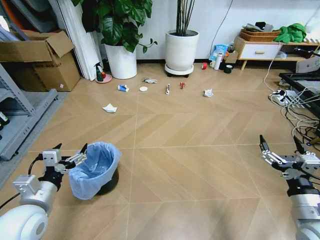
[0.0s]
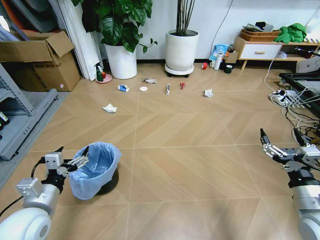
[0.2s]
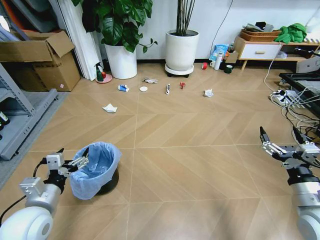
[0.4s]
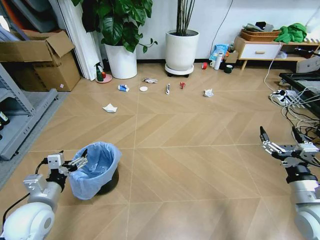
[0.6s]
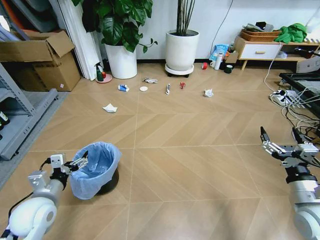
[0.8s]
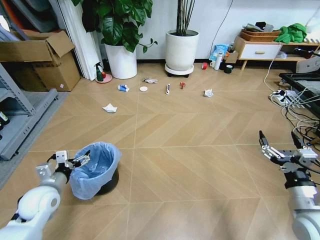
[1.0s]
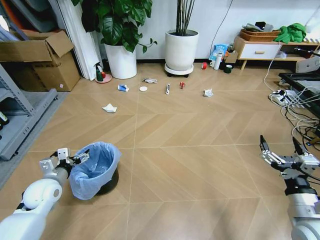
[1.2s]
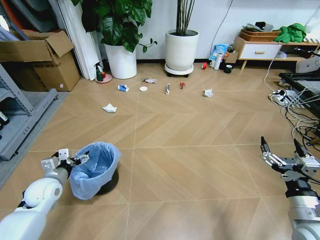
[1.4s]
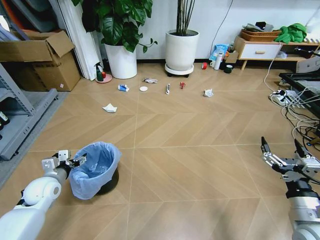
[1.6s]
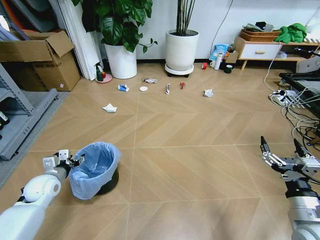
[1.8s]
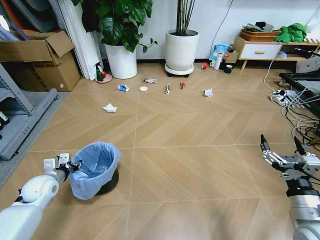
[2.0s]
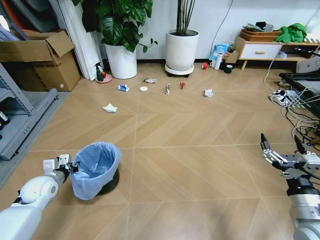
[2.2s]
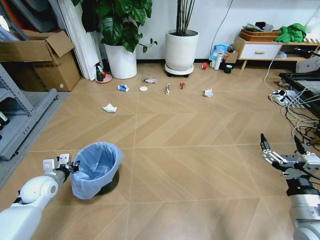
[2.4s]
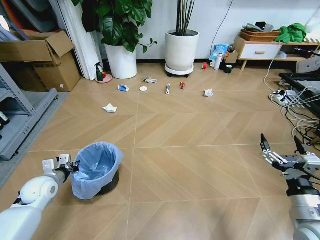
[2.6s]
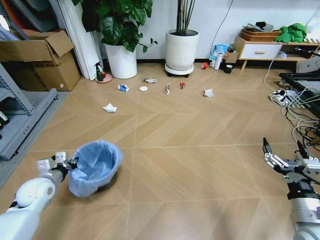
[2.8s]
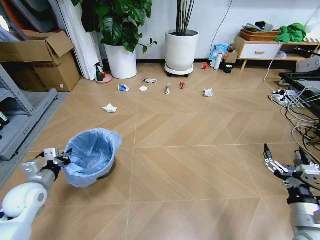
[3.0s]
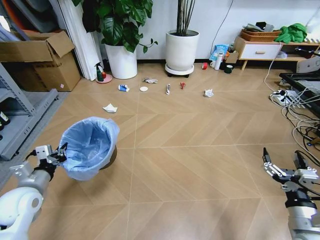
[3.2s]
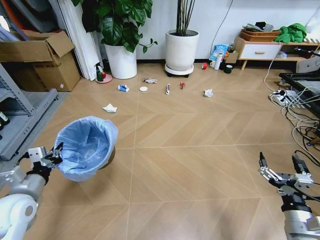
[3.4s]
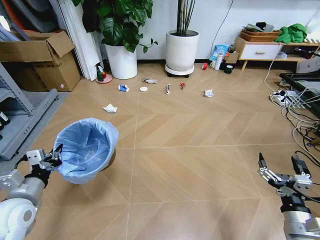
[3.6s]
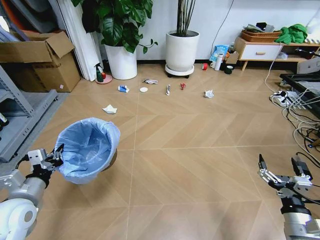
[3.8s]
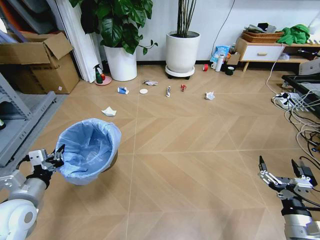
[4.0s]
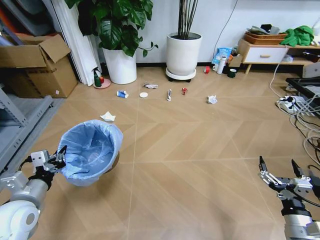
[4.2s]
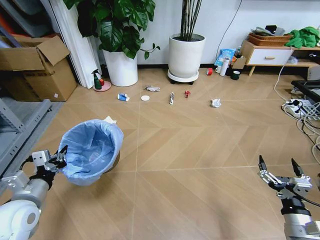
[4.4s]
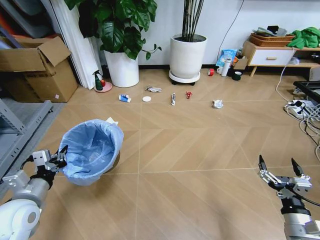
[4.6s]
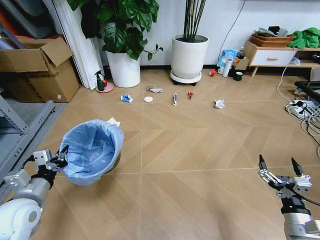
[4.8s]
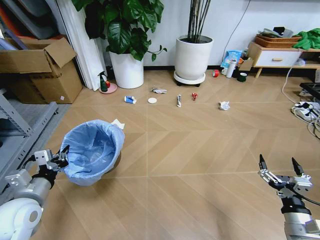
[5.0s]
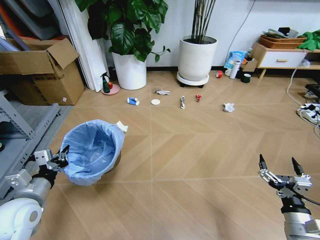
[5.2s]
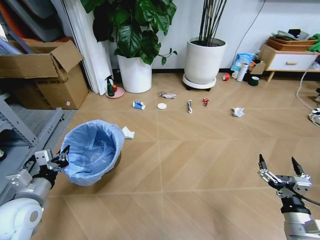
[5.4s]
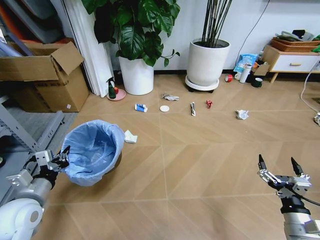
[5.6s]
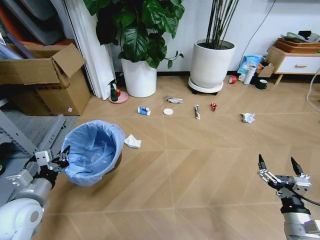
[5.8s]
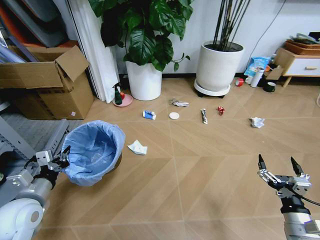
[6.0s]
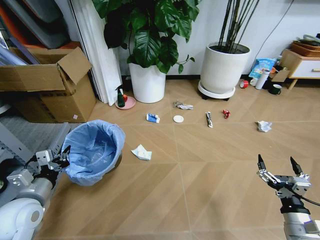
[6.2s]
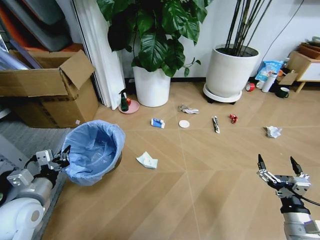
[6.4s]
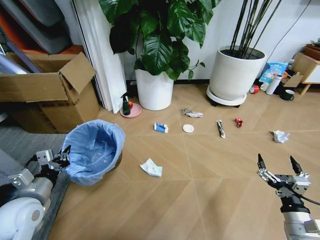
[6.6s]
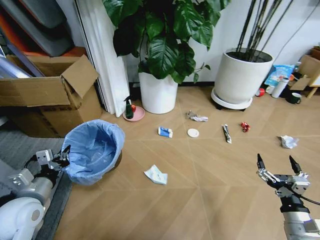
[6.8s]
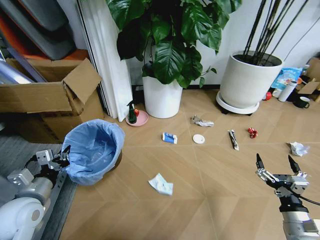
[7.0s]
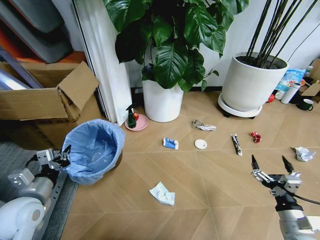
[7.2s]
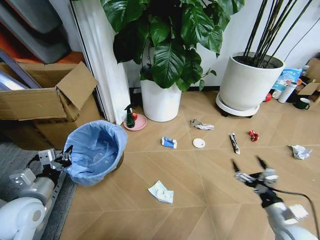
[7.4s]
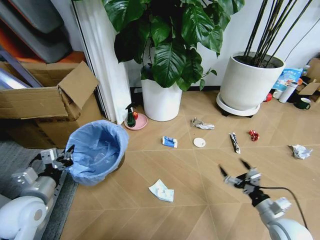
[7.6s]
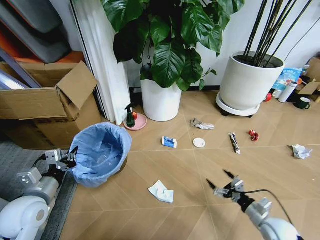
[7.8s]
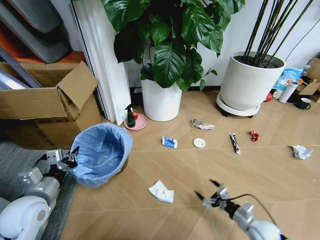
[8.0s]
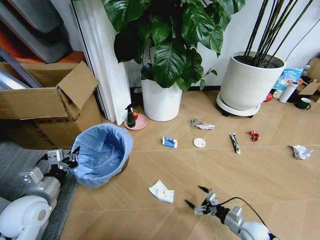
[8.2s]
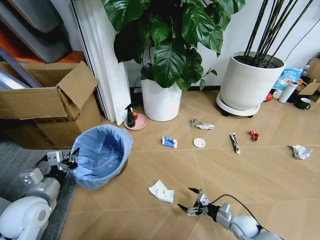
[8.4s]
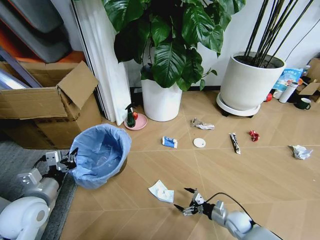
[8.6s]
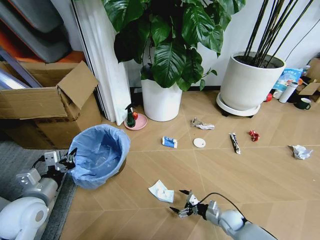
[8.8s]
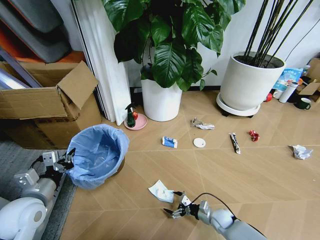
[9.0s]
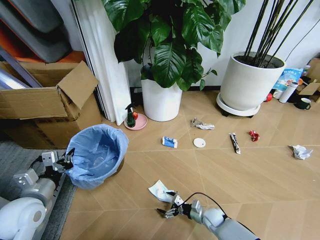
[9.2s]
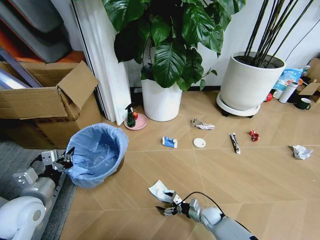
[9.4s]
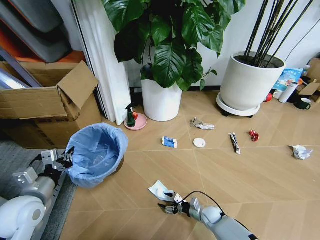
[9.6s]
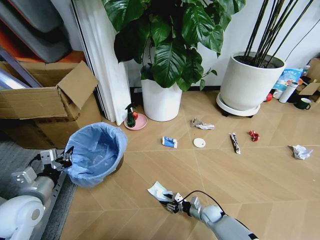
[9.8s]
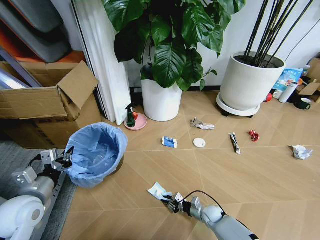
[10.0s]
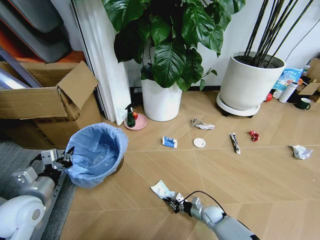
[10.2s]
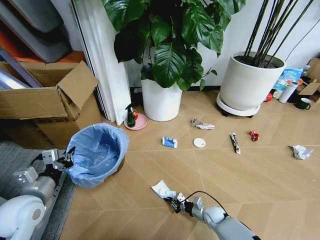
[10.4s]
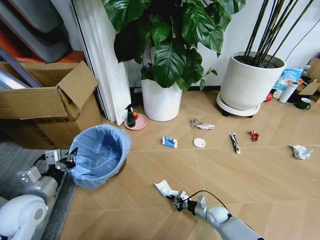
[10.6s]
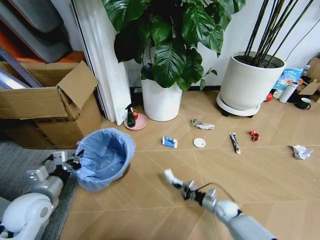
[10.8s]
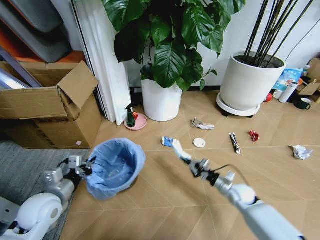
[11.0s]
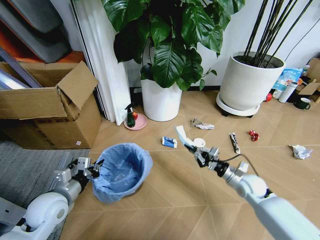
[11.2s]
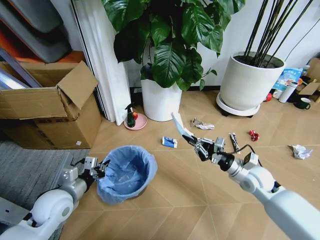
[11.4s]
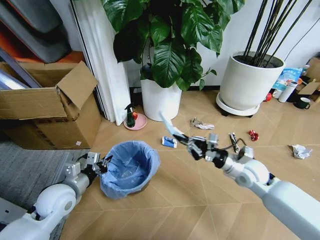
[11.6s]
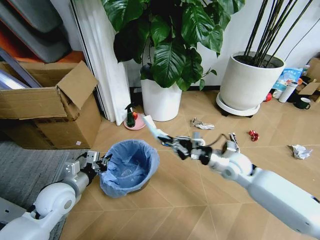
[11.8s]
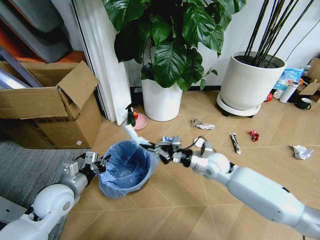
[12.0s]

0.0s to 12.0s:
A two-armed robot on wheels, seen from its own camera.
Task of the whole recording: Pick up the trash bin and place the garbage on the floor into it.
1.6s to 3.0s: The left gripper shifts by about 5 cm, and closes up.
3.0s to 4.4s: The left gripper is displaced backward by some 5 cm.
6.0s to 7.6s: The right gripper goes some 10 cm downward and forward.
7.6s to 9.0s: The right gripper travels downward, to the left and forward by approximately 25 cm.
9.0s to 10.4s: The right gripper closes its fingers.
10.4s to 12.0s: The left gripper travels to the right by about 5 cm; the right gripper heads upward, covering roughly 30 cm.

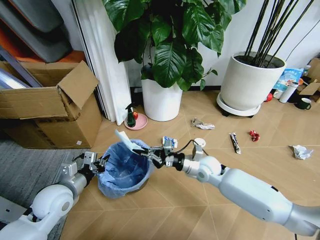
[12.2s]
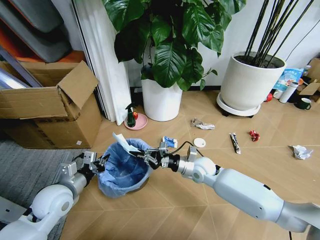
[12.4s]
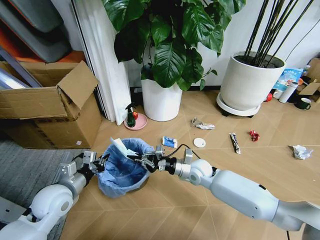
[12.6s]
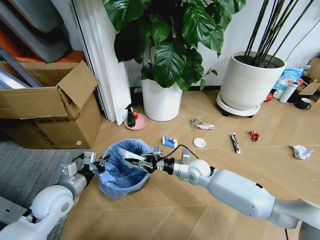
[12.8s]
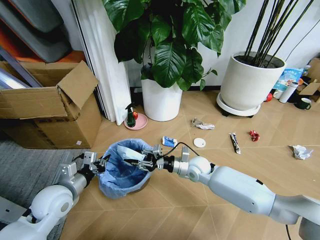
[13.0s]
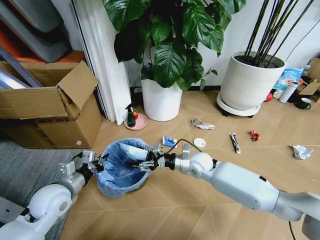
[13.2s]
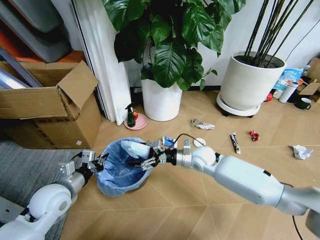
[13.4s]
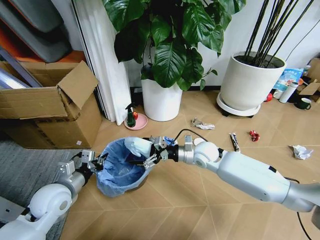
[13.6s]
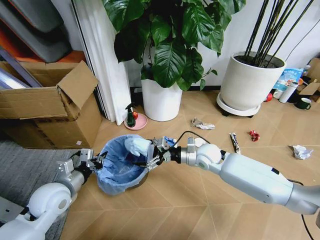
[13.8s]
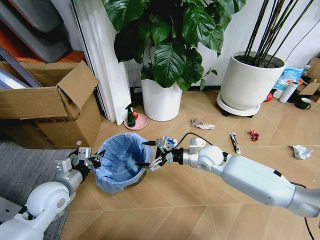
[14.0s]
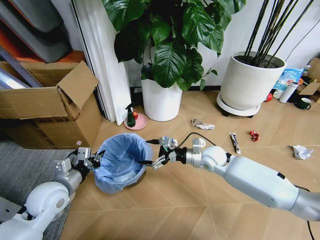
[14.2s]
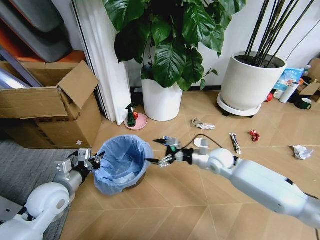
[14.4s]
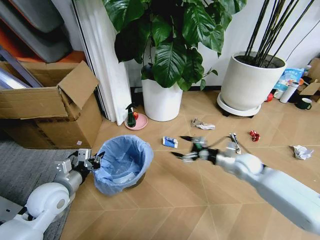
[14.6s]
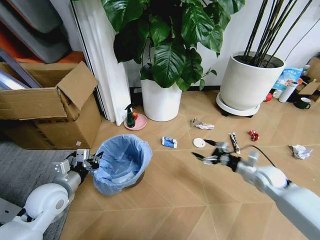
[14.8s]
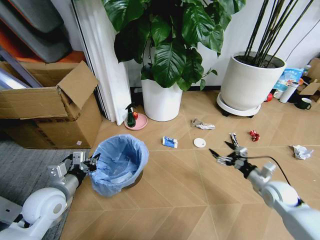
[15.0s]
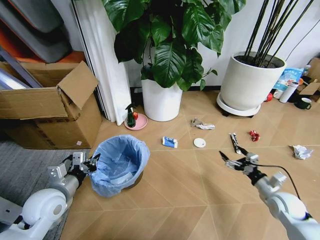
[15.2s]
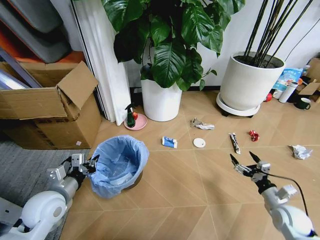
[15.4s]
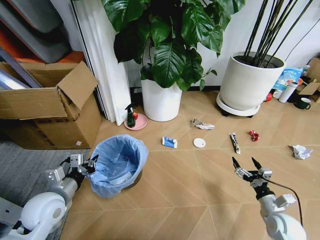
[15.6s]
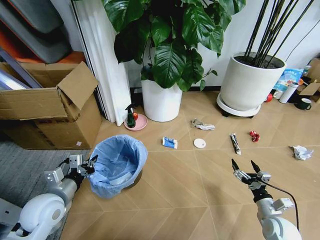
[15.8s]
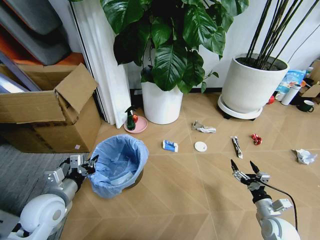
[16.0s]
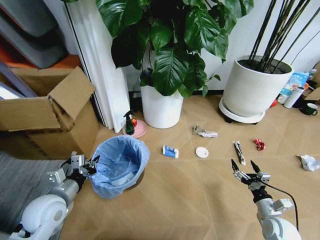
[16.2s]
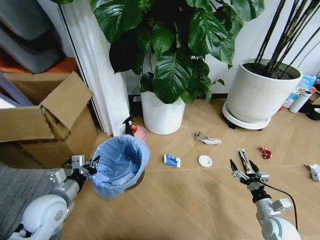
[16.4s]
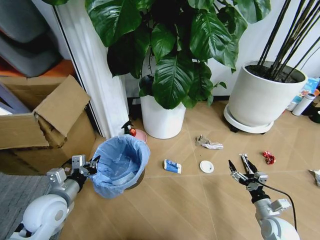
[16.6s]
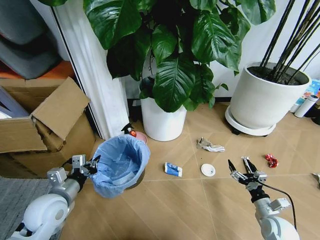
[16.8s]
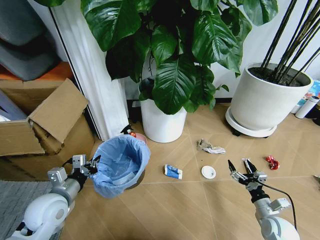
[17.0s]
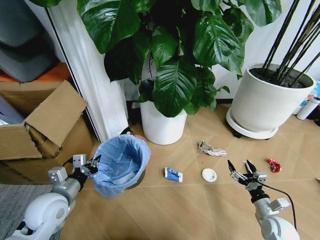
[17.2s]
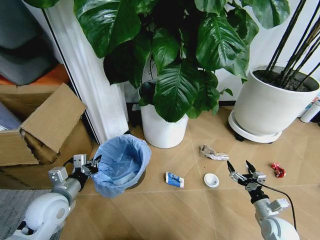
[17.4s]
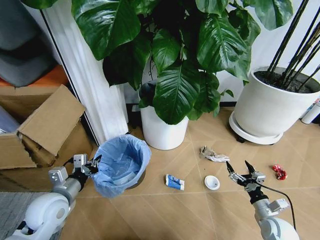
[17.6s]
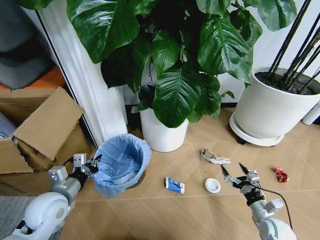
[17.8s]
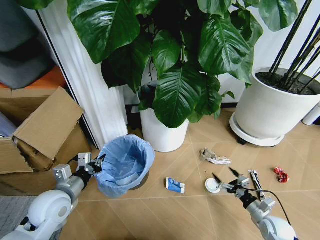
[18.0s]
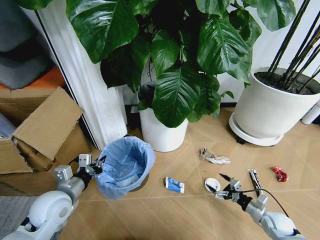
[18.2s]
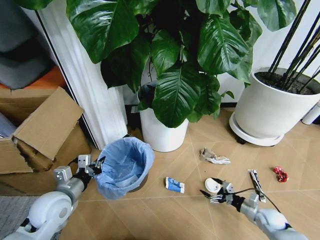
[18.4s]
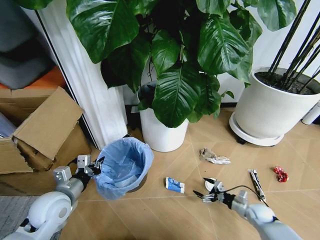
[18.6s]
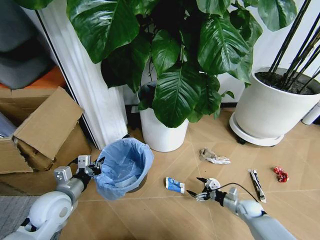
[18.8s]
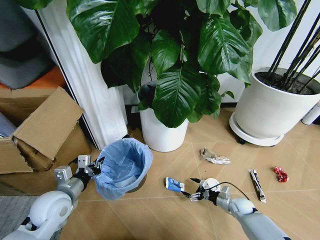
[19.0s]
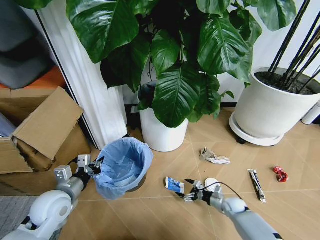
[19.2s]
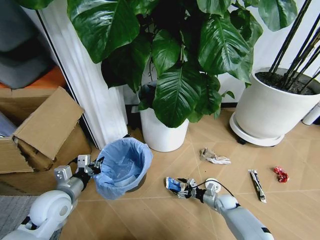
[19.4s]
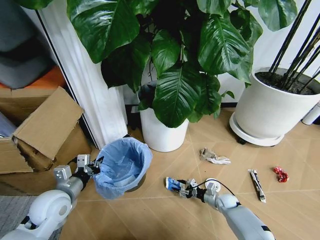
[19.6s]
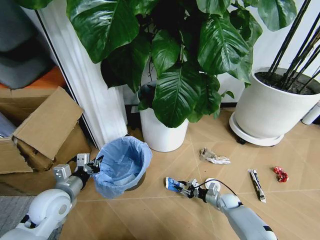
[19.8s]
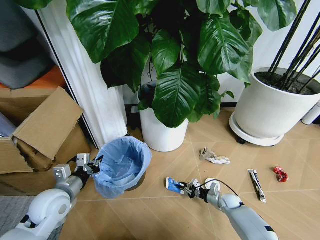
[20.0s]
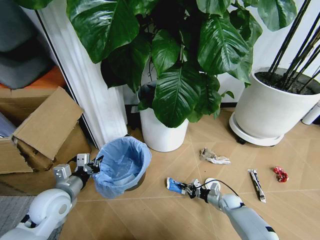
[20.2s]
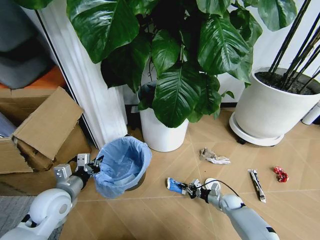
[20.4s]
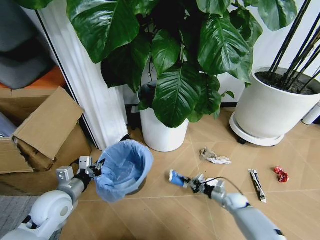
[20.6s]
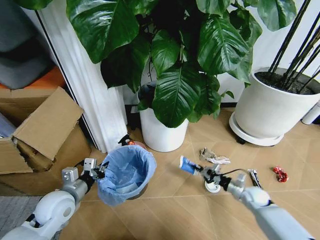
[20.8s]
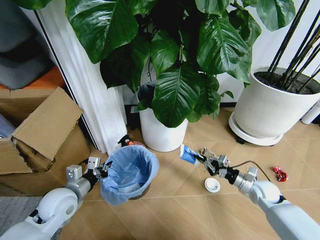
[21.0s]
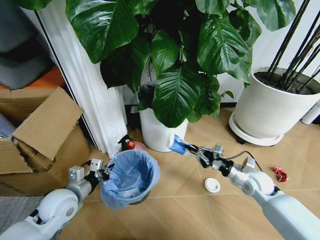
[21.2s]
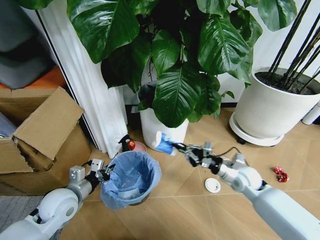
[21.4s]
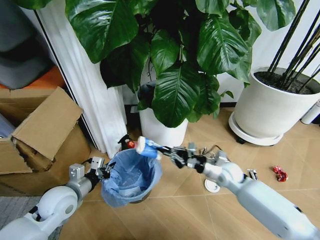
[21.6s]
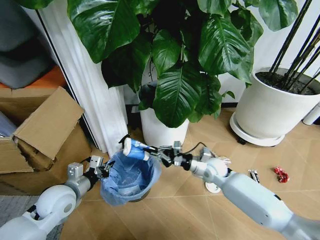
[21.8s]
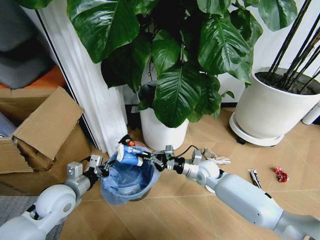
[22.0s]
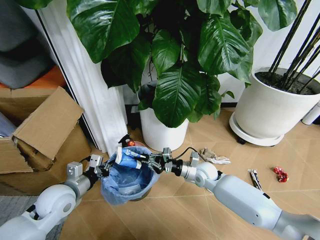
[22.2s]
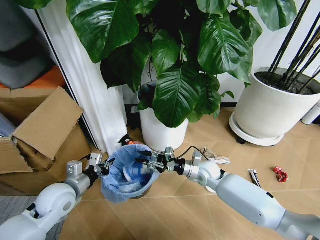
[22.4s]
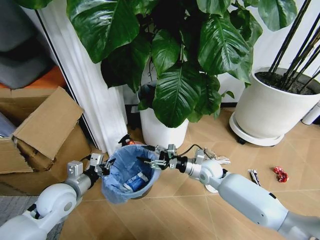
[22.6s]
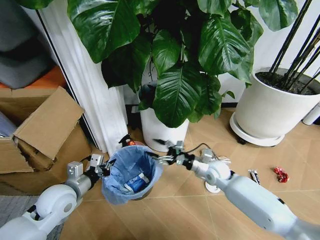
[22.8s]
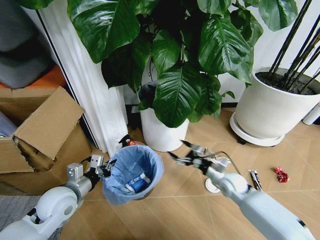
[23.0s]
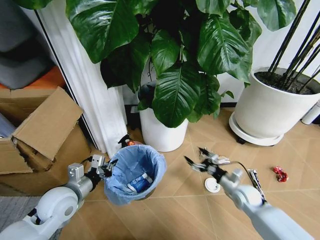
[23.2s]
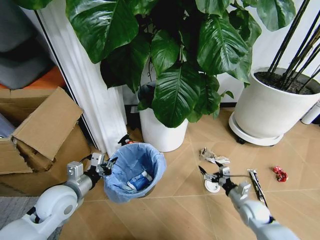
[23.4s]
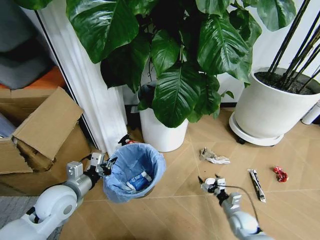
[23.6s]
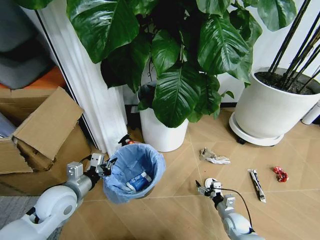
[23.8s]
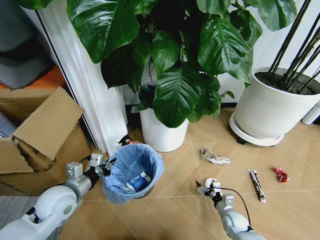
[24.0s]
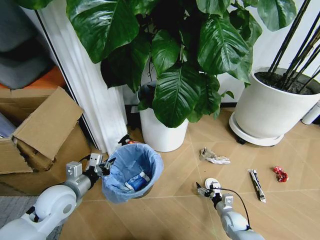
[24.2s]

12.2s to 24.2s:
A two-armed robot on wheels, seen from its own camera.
Task of the whole recording: Pick up the trash bin and place the garbage on the floor into it.
12.2s to 13.8s: The right gripper opens its fingers.
13.8s to 15.2s: The right gripper shifts about 30 cm to the right and backward.
15.2s to 16.6s: The right gripper travels backward and downward by roughly 10 cm.
16.6s to 18.2s: The right gripper changes place by roughly 5 cm.
18.2s to 19.8s: The right gripper moves to the left, forward and downward, approximately 20 cm, and closes its fingers.
19.8s to 21.2s: The right gripper travels upward by some 25 cm, and closes its fingers.
21.2s to 22.6s: The right gripper moves to the left and forward, some 15 cm, and opens its fingers.
22.6s to 24.2s: The right gripper moves downward, backward and to the right, some 30 cm, and opens up.
